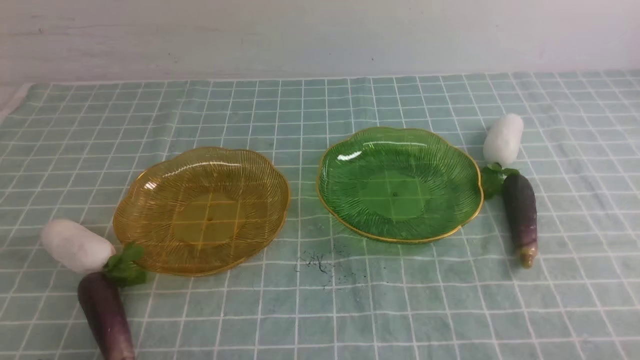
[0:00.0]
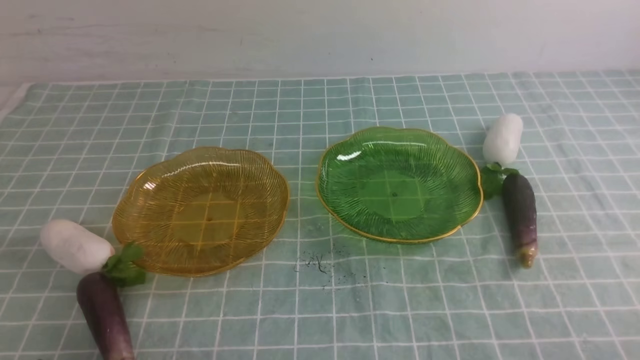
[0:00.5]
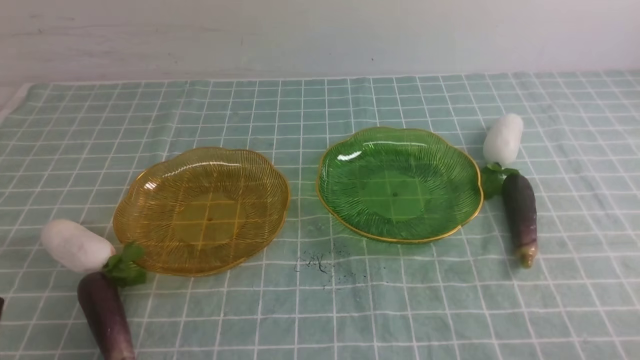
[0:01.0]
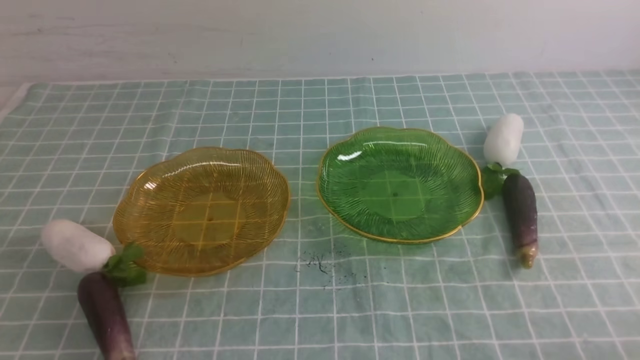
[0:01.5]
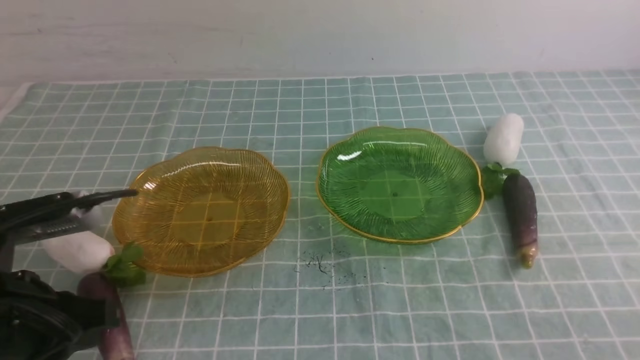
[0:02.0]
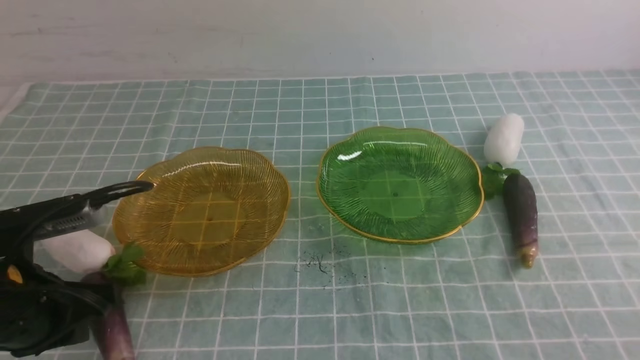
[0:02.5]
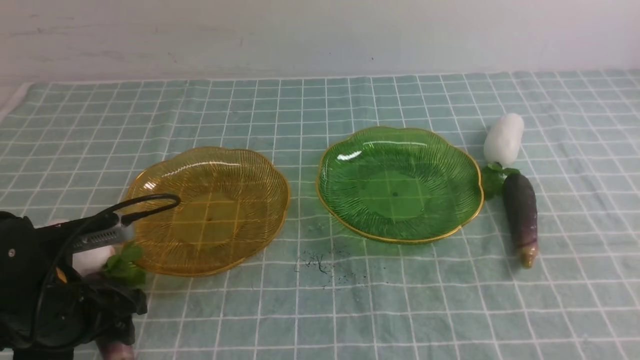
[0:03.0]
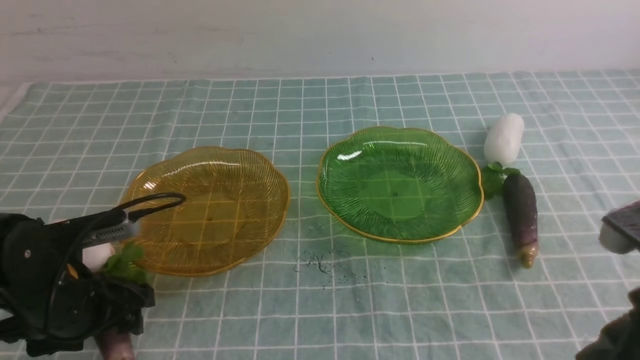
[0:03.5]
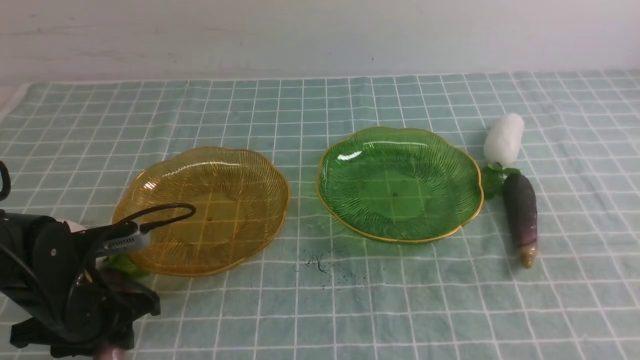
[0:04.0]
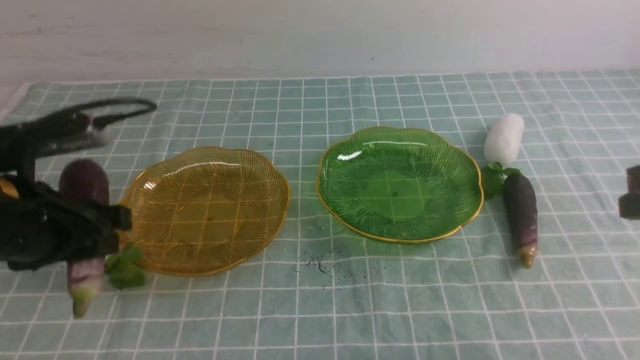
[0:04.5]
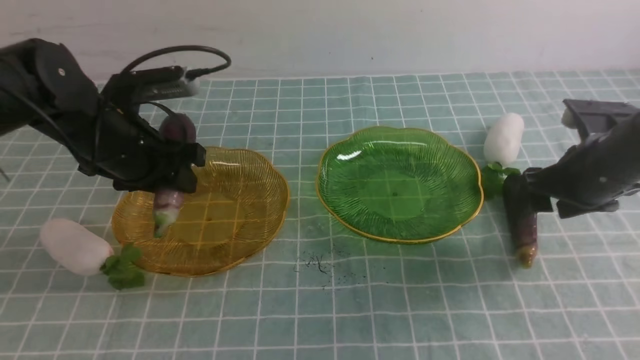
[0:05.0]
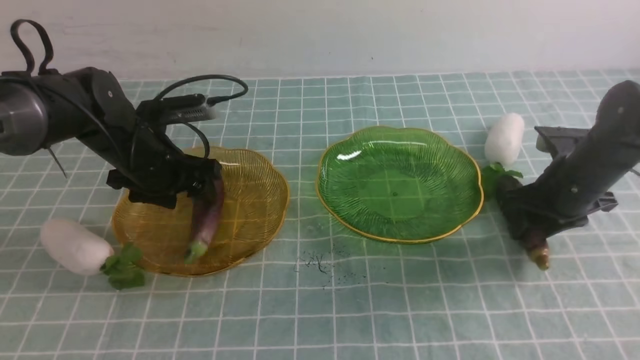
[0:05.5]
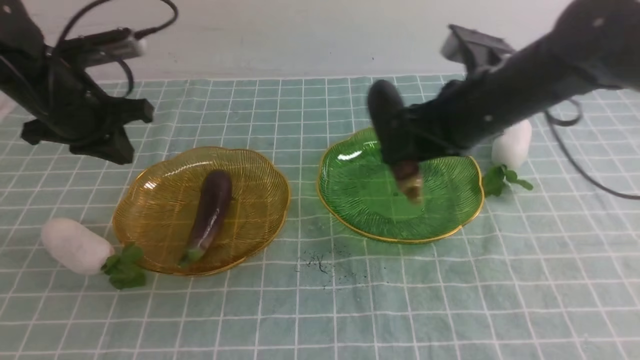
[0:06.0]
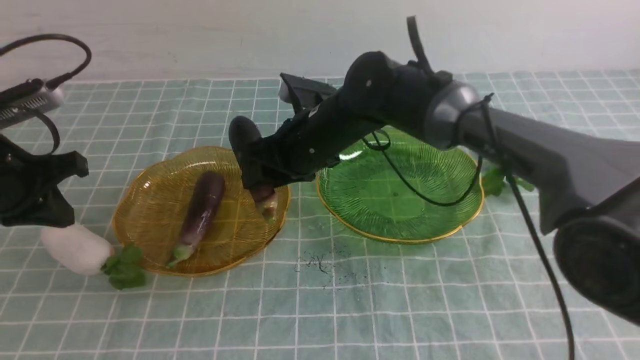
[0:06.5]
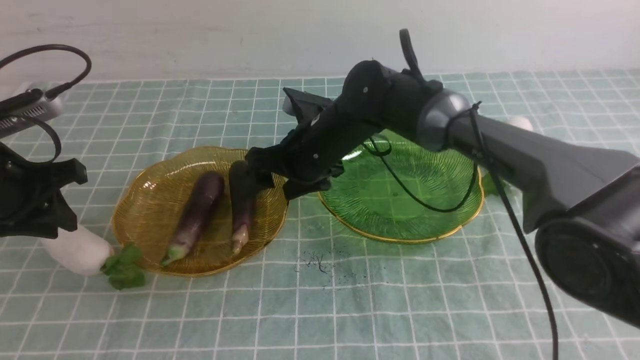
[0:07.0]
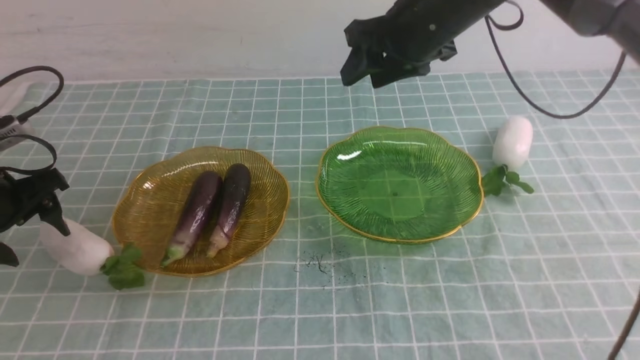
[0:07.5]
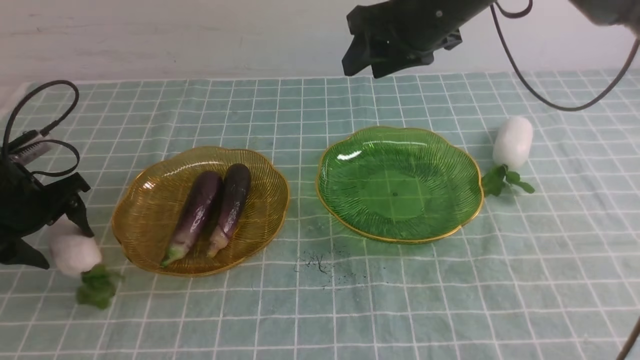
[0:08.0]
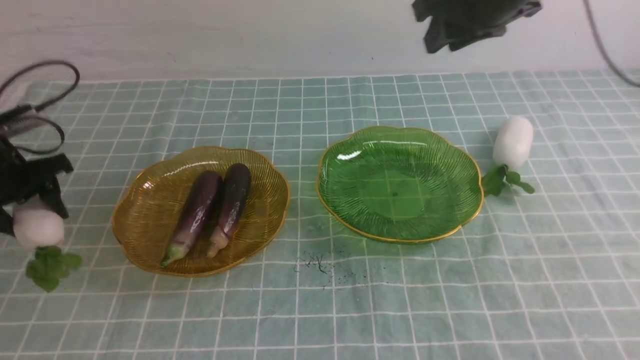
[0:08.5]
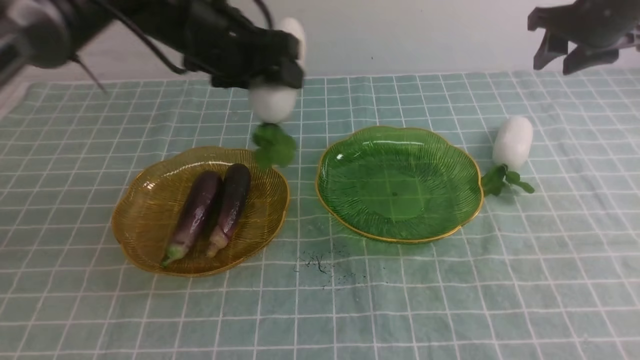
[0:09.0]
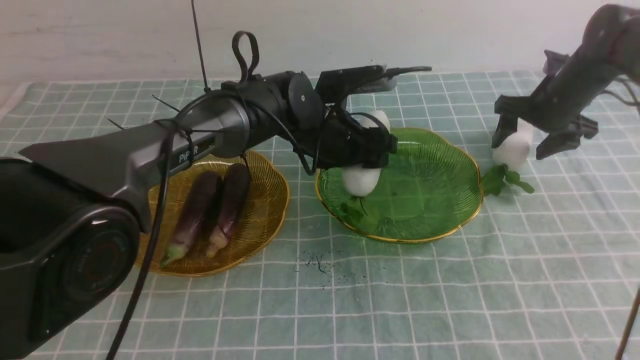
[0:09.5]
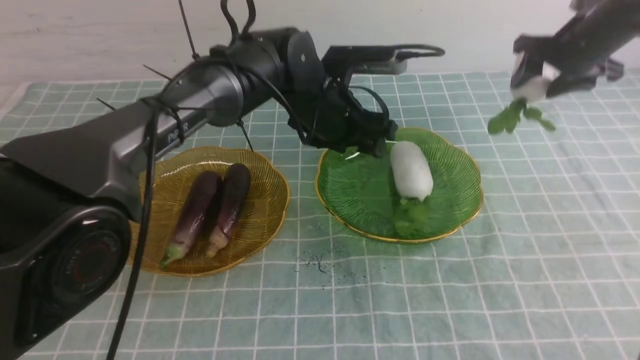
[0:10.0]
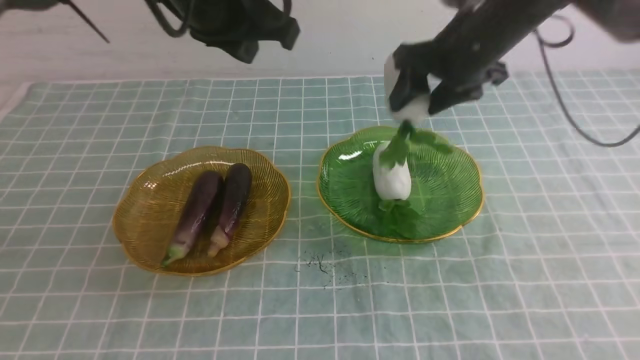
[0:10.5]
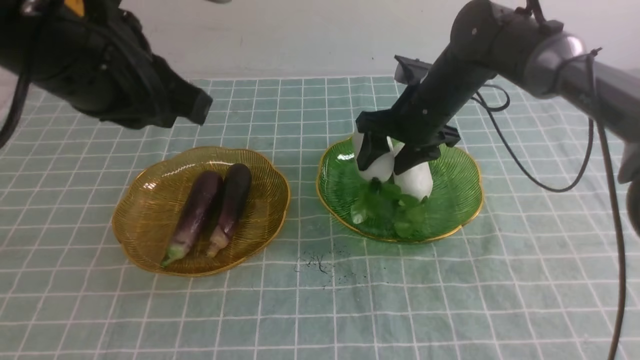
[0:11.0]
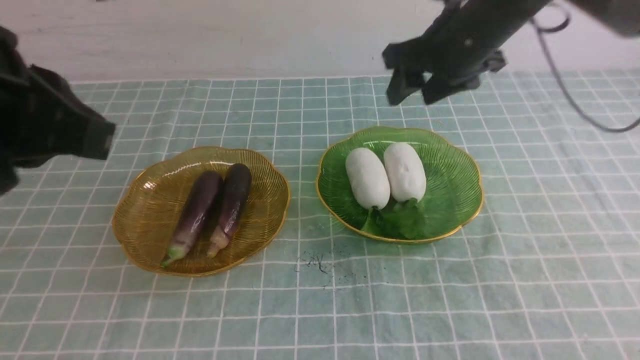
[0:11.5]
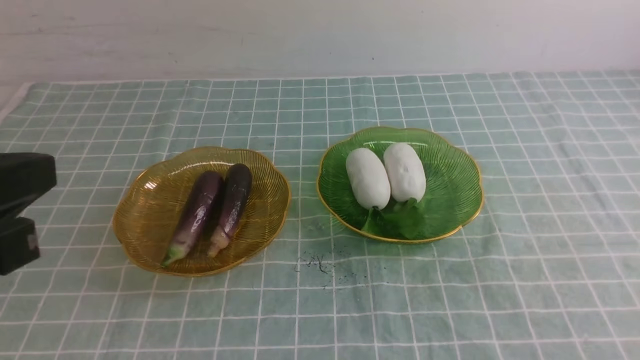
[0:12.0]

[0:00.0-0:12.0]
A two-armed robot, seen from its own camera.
Step, 0:00.0 to 0:04.5: use the left arm to grab an eggplant and put it into the left plate.
Step, 0:05.0 to 0:06.5: use the right arm to grab an eggplant and put it into the left plate.
Step, 0:07.0 to 0:09.5: use the left arm to grab a radish and put it into the right plate.
Step, 0:10.0 to 0:11.0: use the right arm to grab a radish and put it into the right plate.
0:00.0 to 0:02.0: The left gripper shifts roughly 15 cm forward and upward.
0:02.0 to 0:04.0: The left gripper heads downward and forward, covering roughly 15 cm, and opens up.
0:04.0 to 0:06.0: The right gripper shifts roughly 25 cm forward and to the left, and opens its fingers; the left gripper heads forward and upward, covering roughly 20 cm, and closes its fingers.
0:06.0 to 0:08.0: The left gripper is displaced downward and to the left by approximately 15 cm, and opens its fingers; the right gripper is displaced upward and forward by some 10 cm, and opens, then closes again.
0:08.0 to 0:10.0: The left gripper heads to the right, covering approximately 35 cm. The right gripper travels to the right by roughly 20 cm.
0:10.0 to 0:12.0: The right gripper travels backward by approximately 40 cm, and closes its fingers, while the left gripper shifts roughly 35 cm backward and to the left, and closes up.

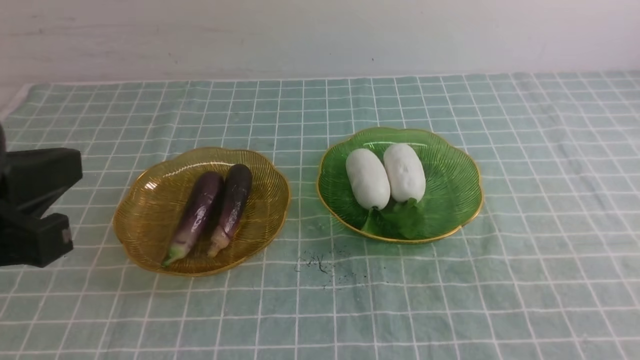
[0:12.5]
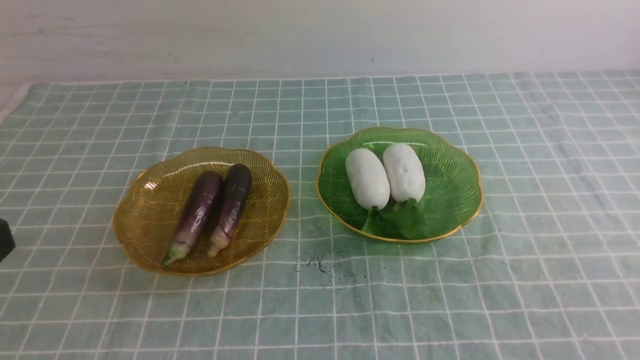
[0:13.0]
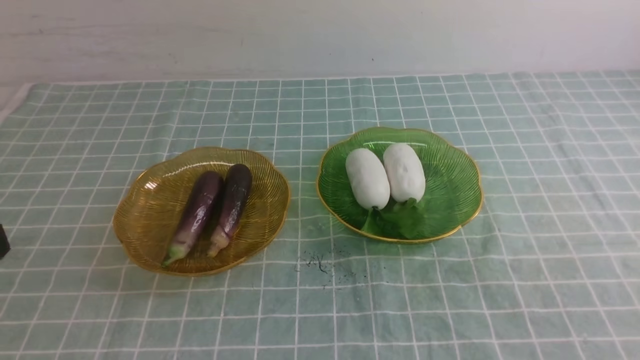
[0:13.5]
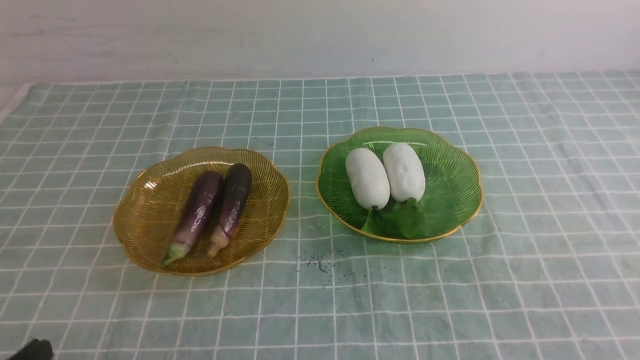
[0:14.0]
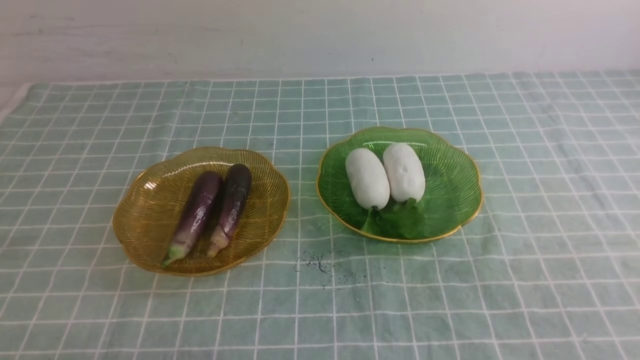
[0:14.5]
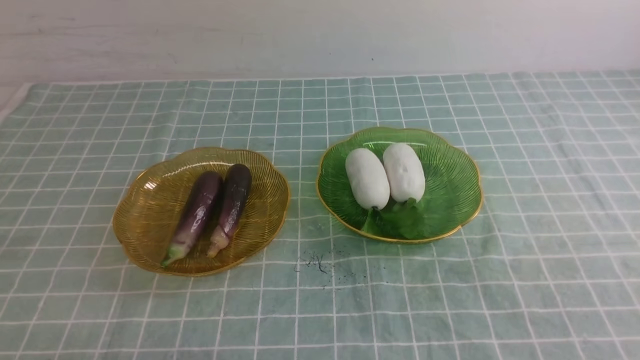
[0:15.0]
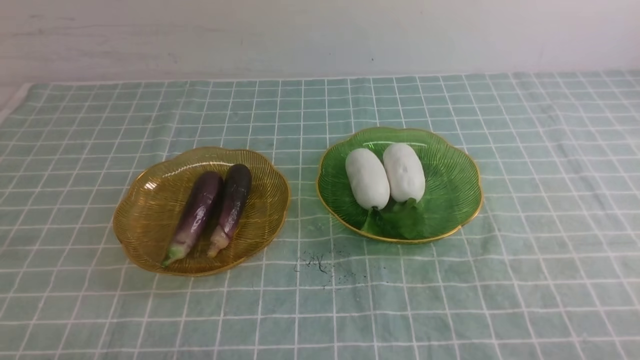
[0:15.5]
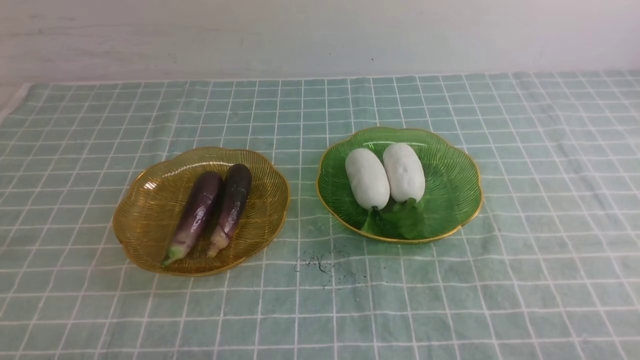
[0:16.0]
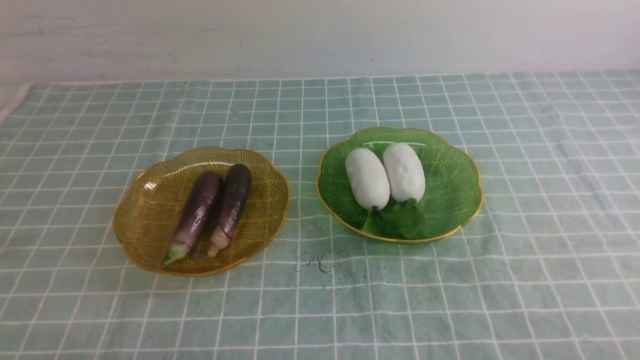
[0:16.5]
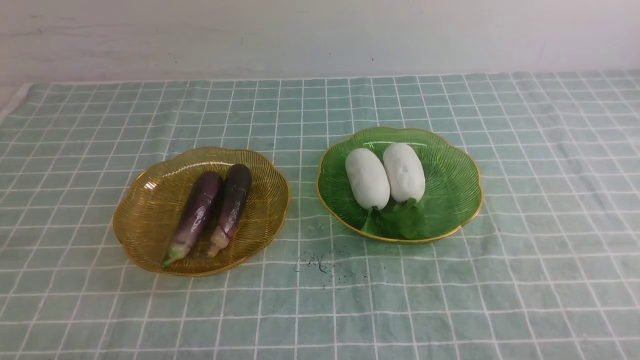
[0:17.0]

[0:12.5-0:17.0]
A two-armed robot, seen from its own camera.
0:12.5 to 0:14.5: The left gripper heads downward, covering about 20 cm.
